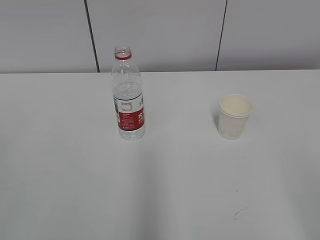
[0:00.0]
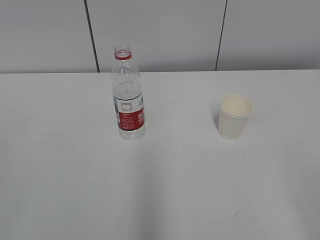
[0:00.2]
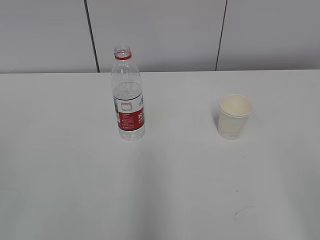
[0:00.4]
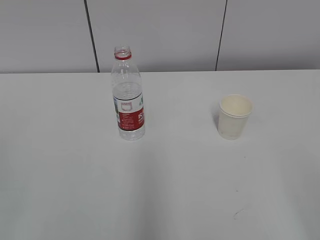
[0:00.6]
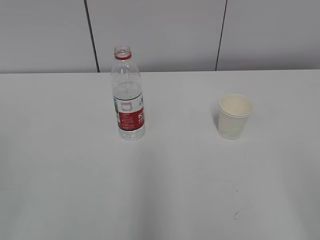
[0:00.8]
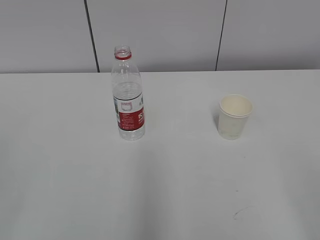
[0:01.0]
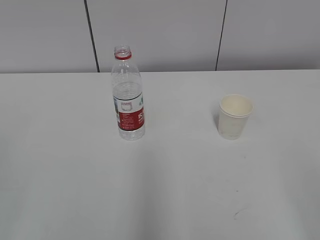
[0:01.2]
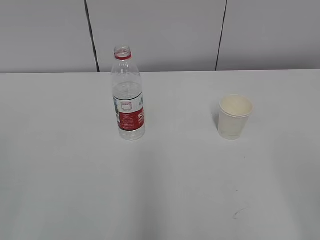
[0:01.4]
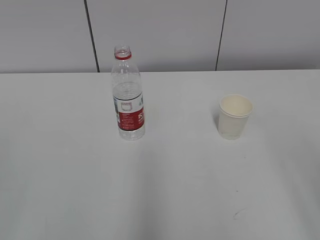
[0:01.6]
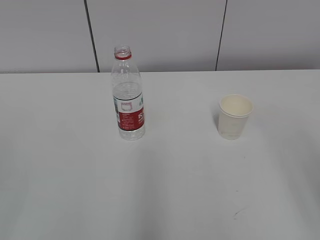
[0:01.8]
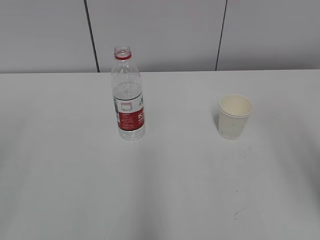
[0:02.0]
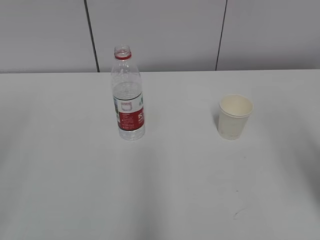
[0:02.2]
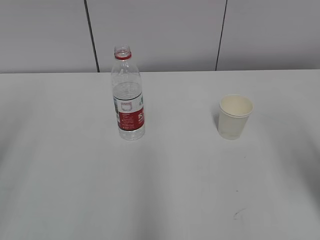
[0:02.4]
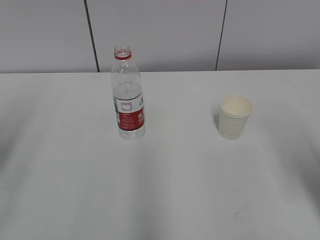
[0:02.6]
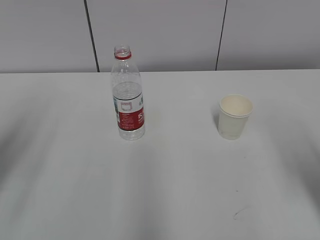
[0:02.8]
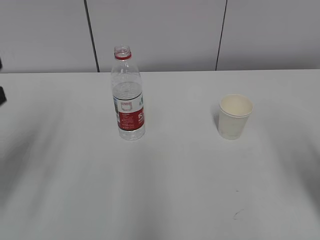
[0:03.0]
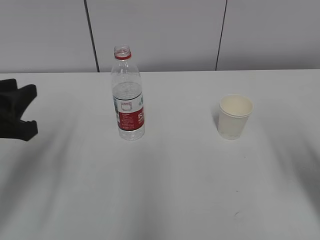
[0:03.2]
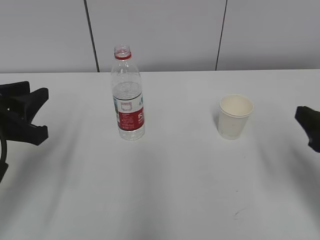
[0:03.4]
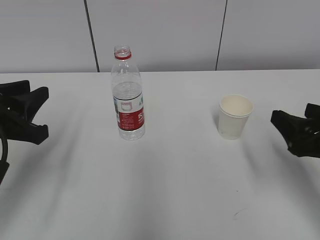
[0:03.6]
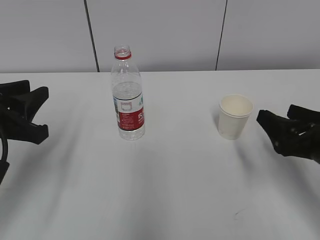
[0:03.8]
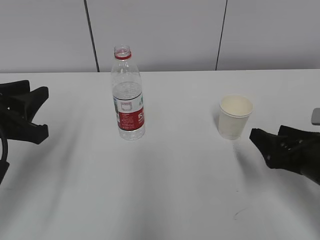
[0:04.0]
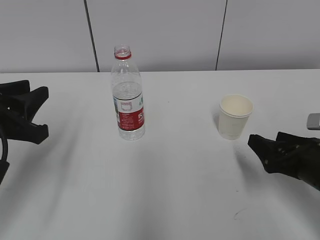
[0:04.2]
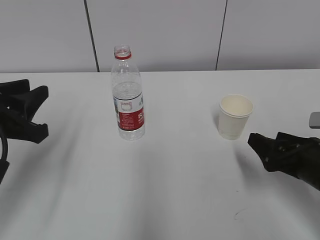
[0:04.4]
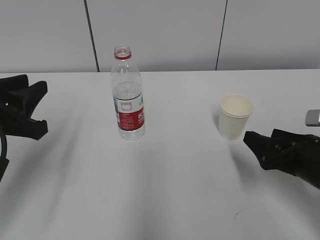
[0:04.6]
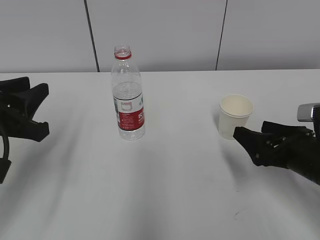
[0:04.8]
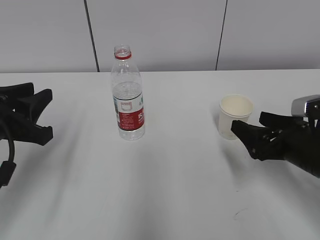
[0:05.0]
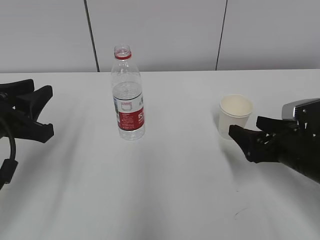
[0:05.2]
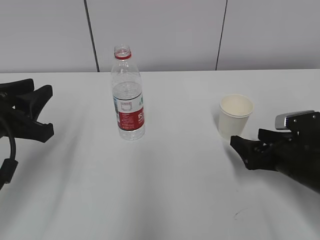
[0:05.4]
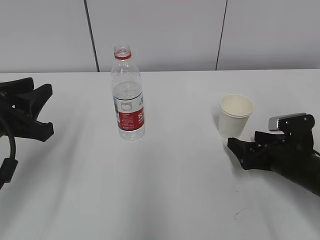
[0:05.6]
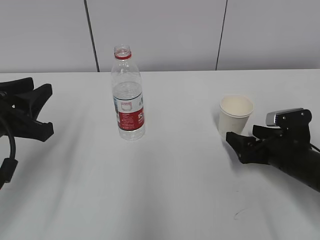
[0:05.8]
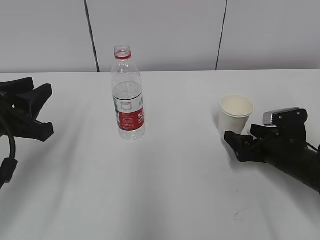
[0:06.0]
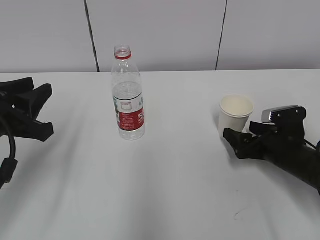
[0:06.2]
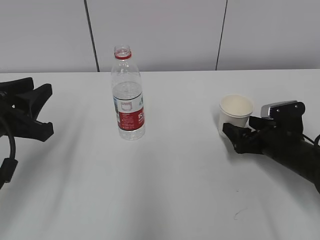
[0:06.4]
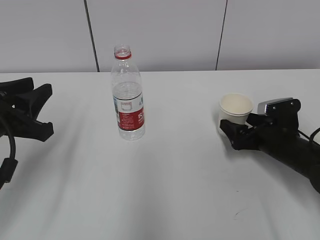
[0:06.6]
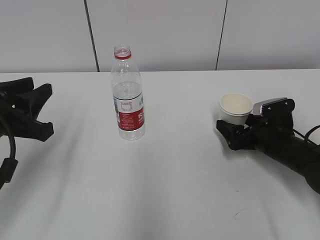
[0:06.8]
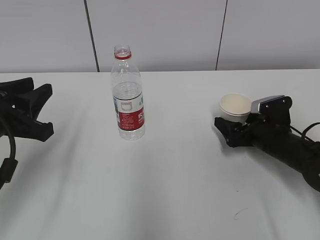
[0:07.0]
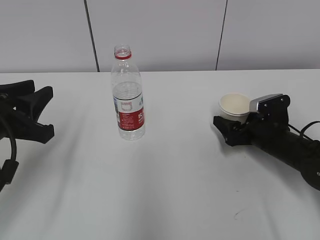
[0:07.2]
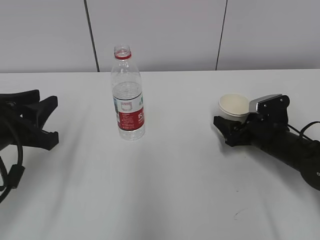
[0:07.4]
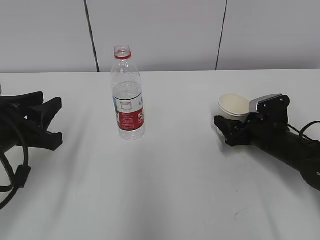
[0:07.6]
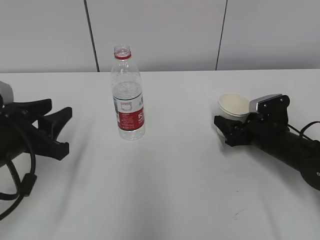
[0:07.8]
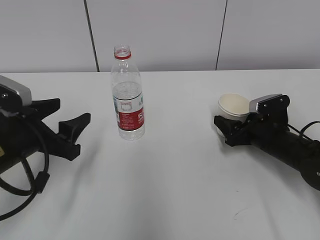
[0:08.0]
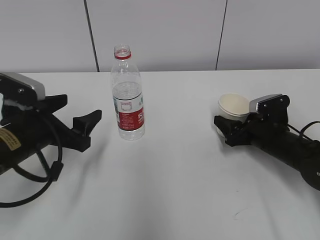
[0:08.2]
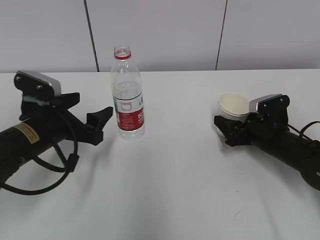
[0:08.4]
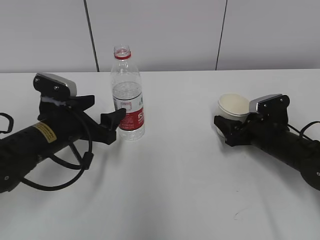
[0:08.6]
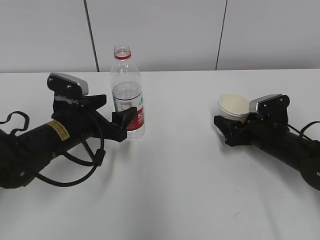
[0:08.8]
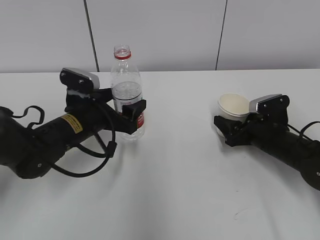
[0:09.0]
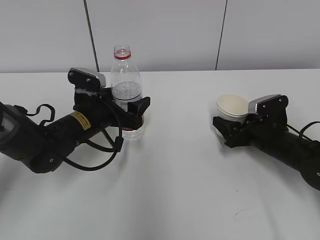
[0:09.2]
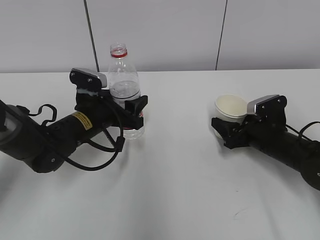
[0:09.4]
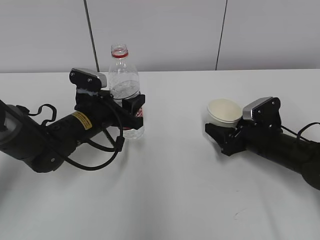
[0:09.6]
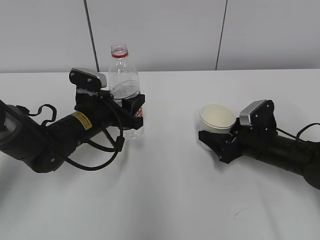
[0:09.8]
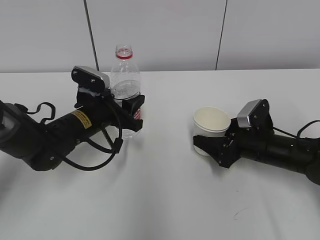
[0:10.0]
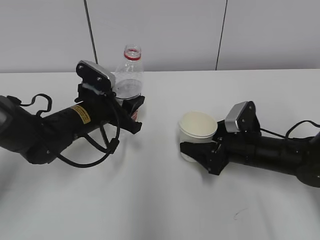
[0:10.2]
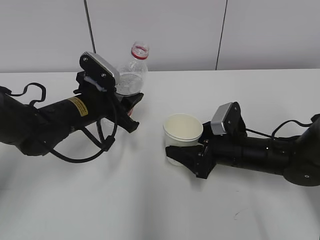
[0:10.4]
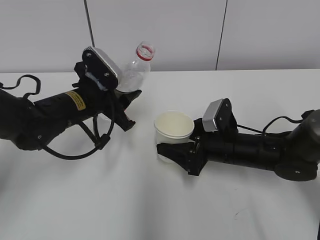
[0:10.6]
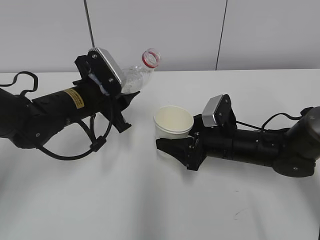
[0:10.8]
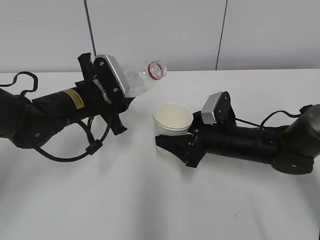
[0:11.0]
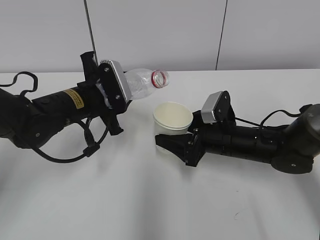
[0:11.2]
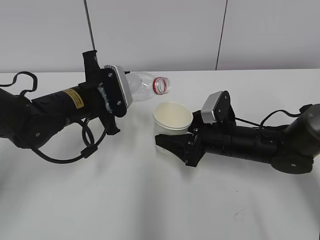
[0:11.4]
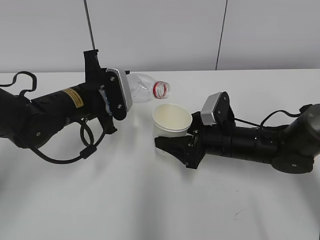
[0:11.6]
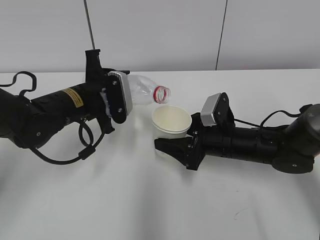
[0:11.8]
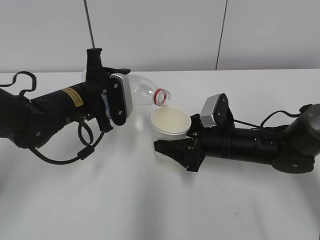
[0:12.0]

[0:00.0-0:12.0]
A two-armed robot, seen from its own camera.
Step, 0:00.0 to 0:07.8: Grab the paper cup with the right hand.
Step, 0:08.2 to 0:10.2: Lift the paper cup with the right hand.
0:01.6 to 0:03.0: The left gripper heads forward, covering about 20 cm; the right gripper heads forward and downward, covering about 15 cm.
0:03.0 to 0:04.4: The right gripper goes some 15 cm downward and forward; the left gripper ends up about 5 cm from where it was.
0:04.4 to 0:06.0: The right gripper travels forward and downward by about 10 cm, and opens its fingers.
0:06.0 to 0:07.6: The right gripper closes its fingers.
0:07.6 to 0:09.0: The left gripper moves forward, to the right and downward, about 15 cm, and opens up.
0:09.0 to 0:10.4: The left gripper closes its fingers, while the right gripper goes about 10 cm to the left.

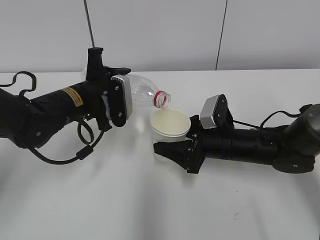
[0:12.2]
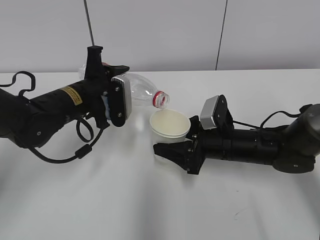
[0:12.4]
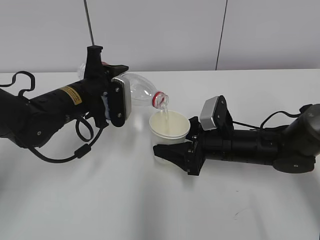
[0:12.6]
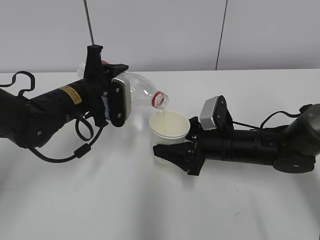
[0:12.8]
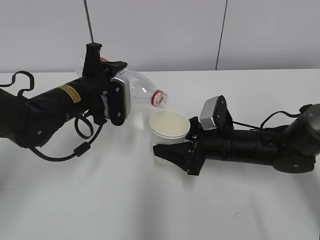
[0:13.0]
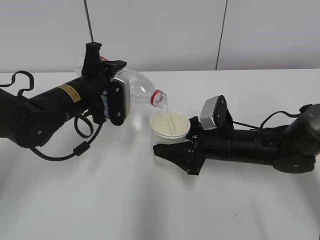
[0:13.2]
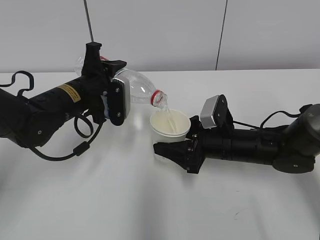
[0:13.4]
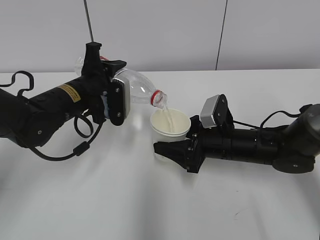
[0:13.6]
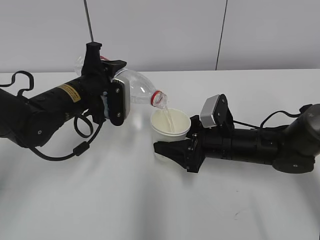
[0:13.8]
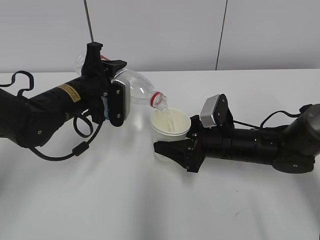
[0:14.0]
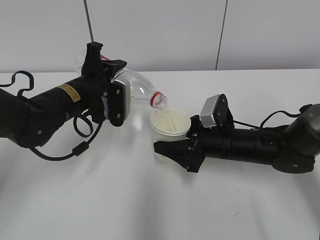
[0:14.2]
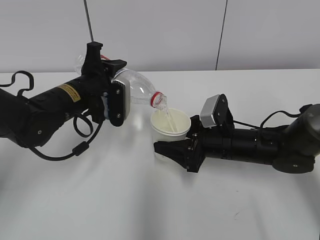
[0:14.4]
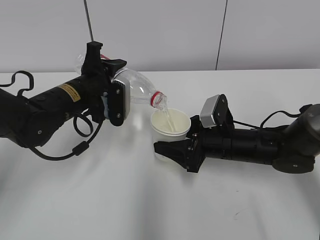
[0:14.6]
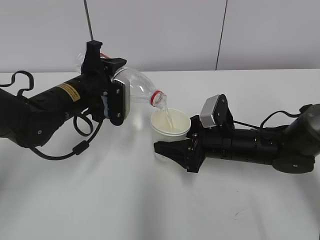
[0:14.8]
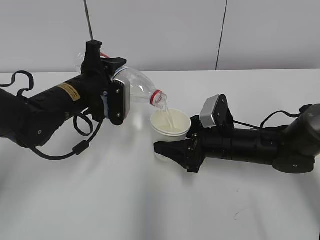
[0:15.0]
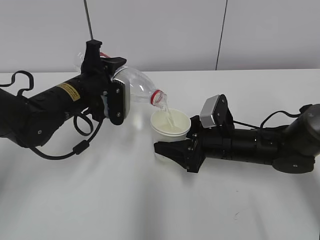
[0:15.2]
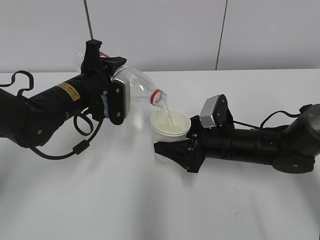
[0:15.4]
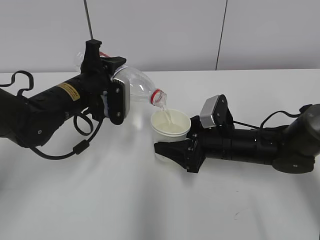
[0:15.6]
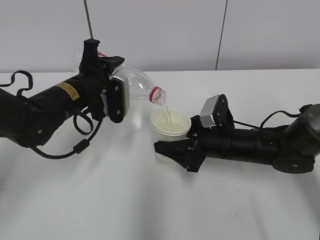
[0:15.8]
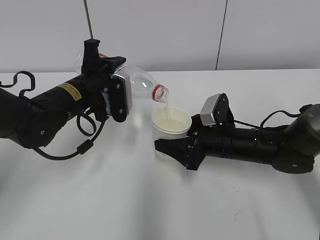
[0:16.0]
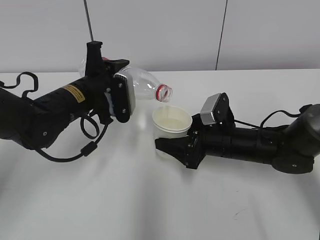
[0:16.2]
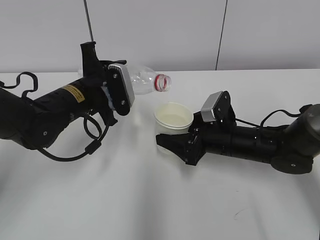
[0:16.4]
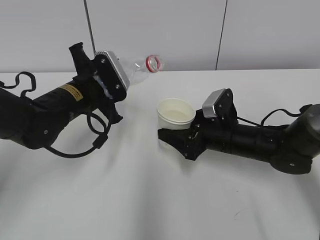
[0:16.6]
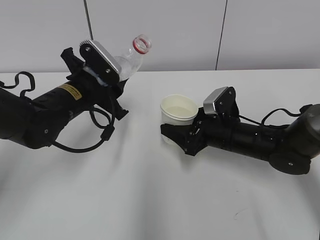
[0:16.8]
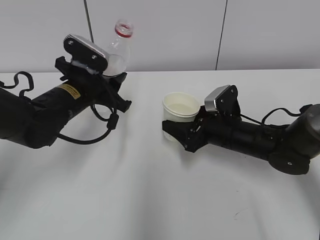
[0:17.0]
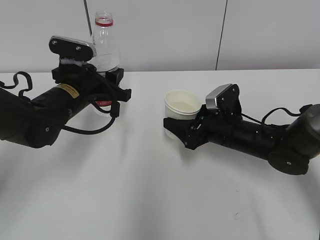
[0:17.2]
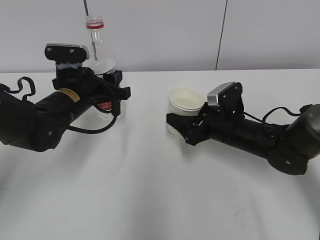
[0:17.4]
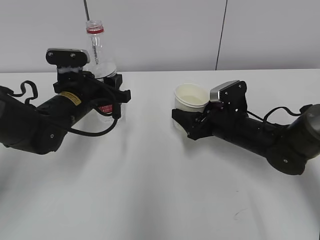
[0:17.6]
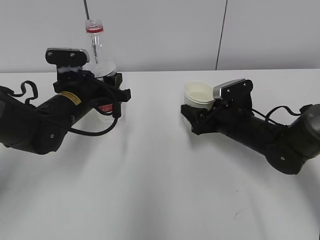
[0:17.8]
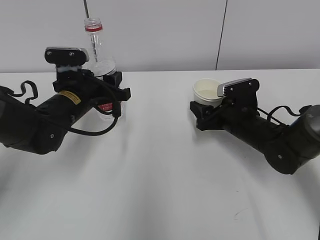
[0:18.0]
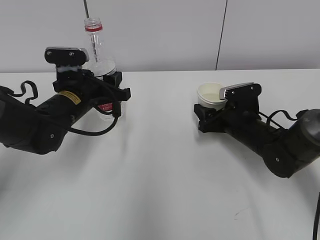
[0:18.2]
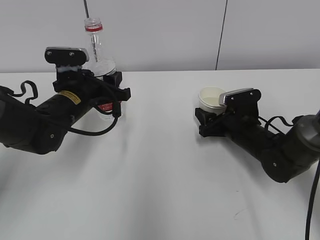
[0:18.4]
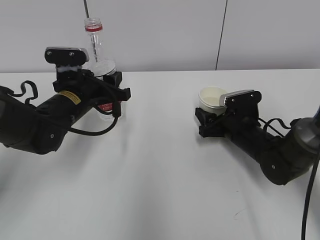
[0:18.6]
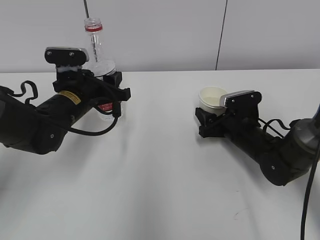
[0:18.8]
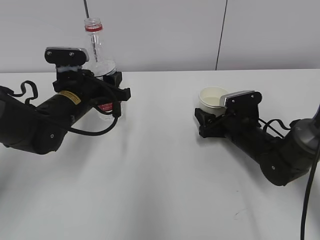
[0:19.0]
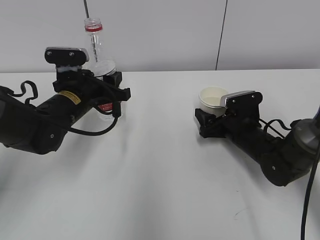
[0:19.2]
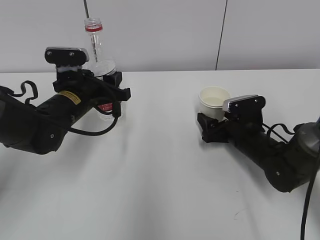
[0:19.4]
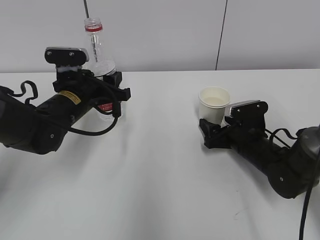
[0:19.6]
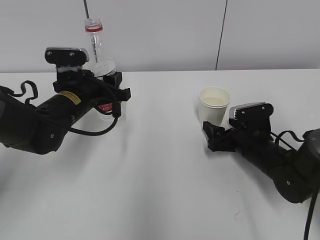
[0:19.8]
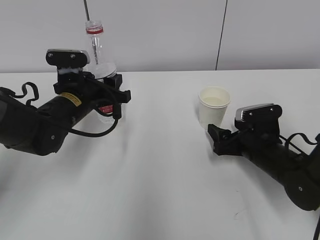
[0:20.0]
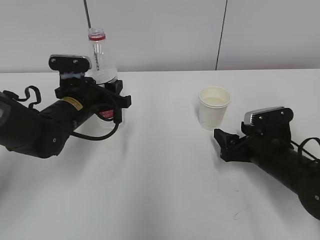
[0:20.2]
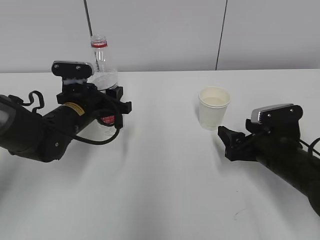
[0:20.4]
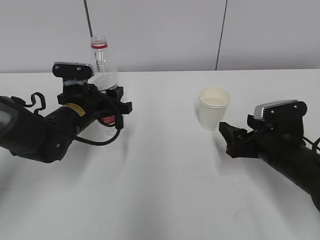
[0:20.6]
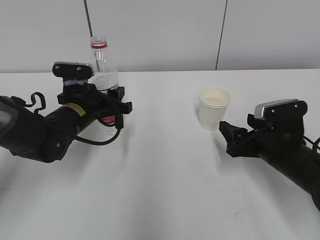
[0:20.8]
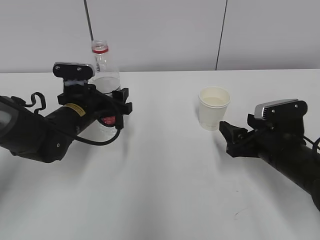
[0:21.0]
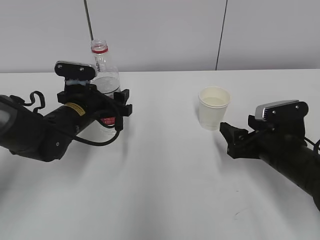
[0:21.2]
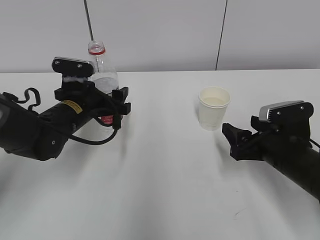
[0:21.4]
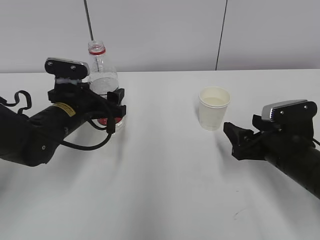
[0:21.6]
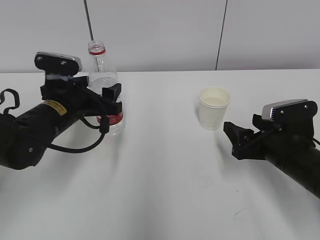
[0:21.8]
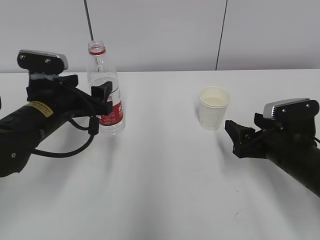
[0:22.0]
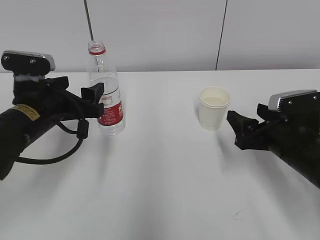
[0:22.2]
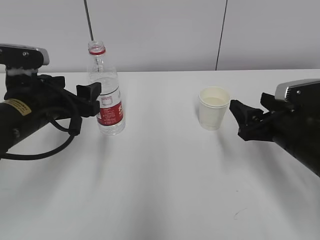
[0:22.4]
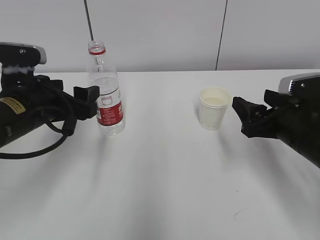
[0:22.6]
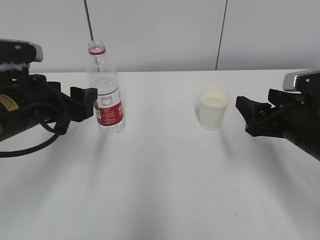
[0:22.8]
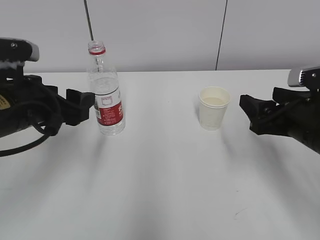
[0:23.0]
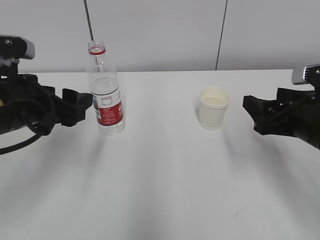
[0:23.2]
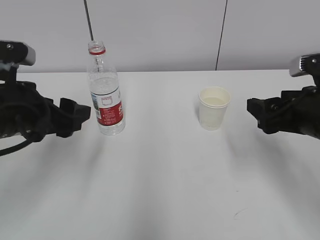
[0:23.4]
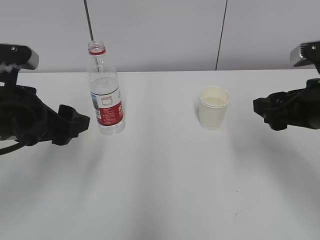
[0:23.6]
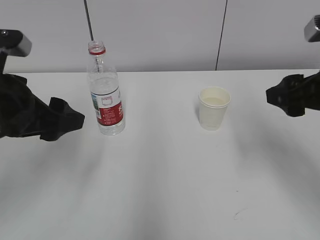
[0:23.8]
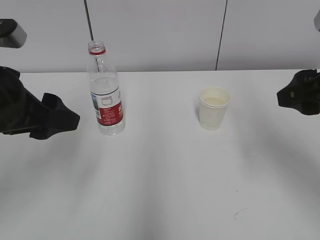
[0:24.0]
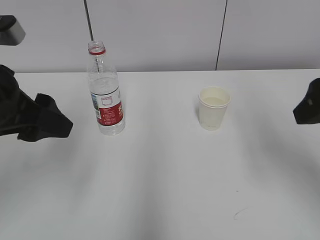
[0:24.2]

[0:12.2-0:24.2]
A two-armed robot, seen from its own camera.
Step, 0:14.6 to 0:15.8: Place the paper cup with the right hand.
Step, 0:16.0 to 0:17.8: Place the water bottle with the left hand.
0:12.2 to 0:13.8: The grippers move only a little.
0:13.8 to 0:15.2: The two grippers keep their place.
0:16.6 to 0:18.2: The right gripper shifts by about 5 cm.
0:18.2 to 0:19.8: The right gripper opens.
0:19.8 to 0:21.2: The right gripper goes approximately 5 cm backward. The left gripper opens.
0:21.2 to 0:22.6: The left gripper heads backward and upward, covering approximately 10 cm. The right gripper is displaced upward by some 5 cm.
0:22.6 to 0:24.2: The left gripper heads upward and backward, covering some 10 cm. Meanwhile the right gripper moves upward, about 15 cm.
